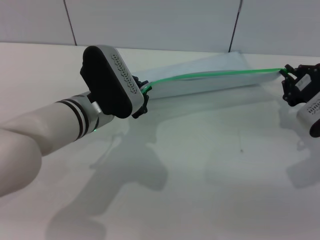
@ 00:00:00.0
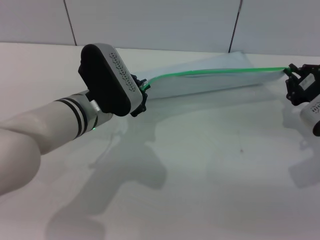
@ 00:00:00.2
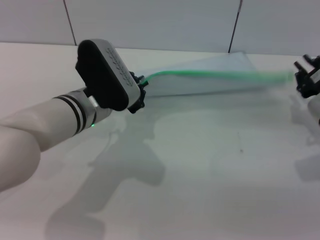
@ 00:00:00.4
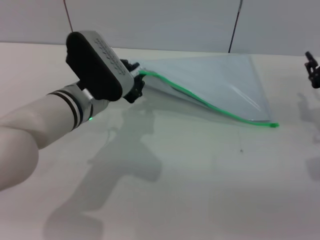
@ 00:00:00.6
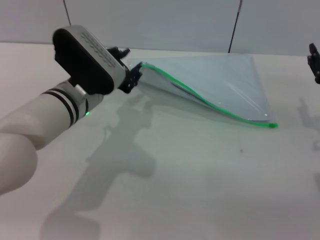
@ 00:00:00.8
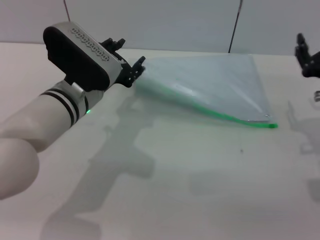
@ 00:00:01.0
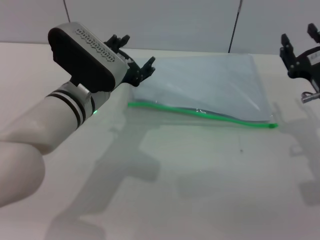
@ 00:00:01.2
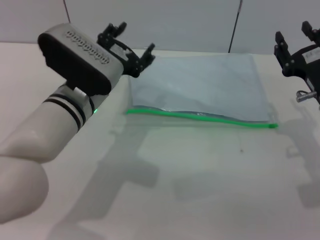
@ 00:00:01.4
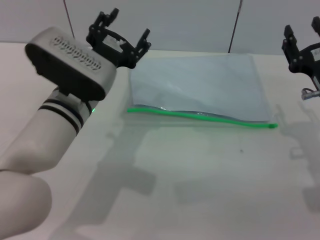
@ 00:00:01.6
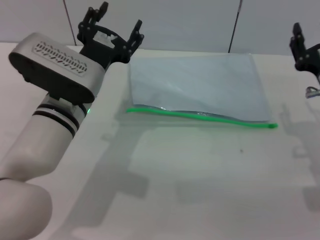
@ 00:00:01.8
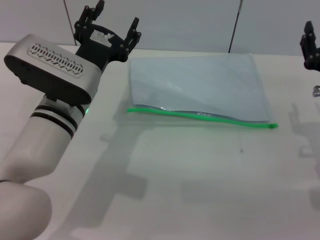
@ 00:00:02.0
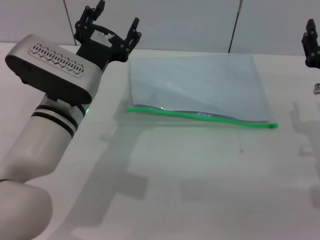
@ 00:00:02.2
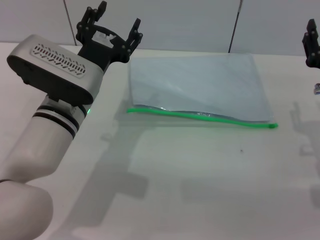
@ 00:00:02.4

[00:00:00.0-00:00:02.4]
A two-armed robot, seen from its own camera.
Step, 00:00:00.6 to 00:00:01.4: Place the transparent plastic bag.
00:00:00.0 to 00:00:01.2: The left gripper opens up. Meanwhile the right gripper opens up.
